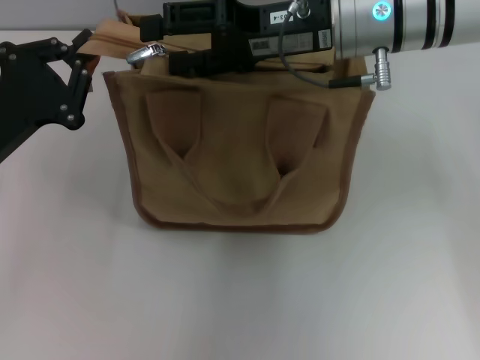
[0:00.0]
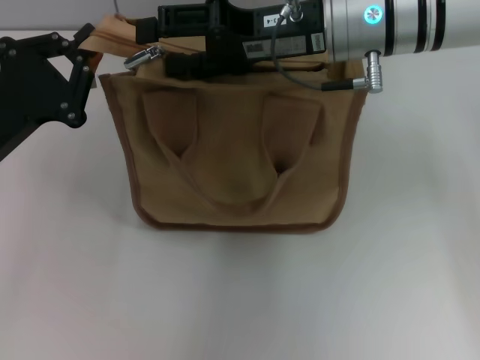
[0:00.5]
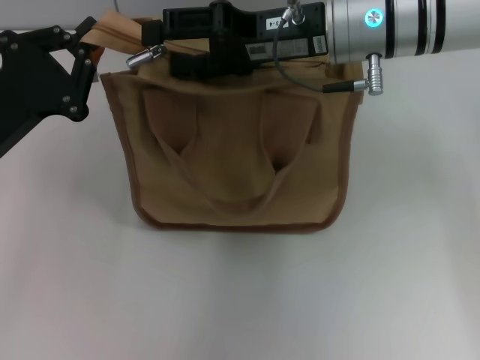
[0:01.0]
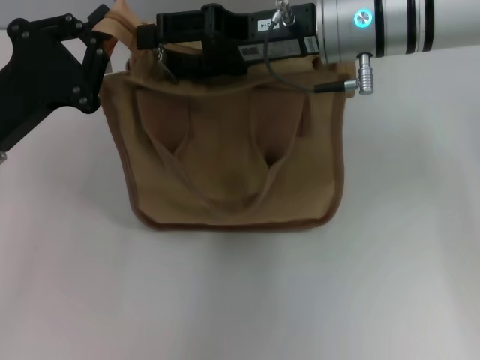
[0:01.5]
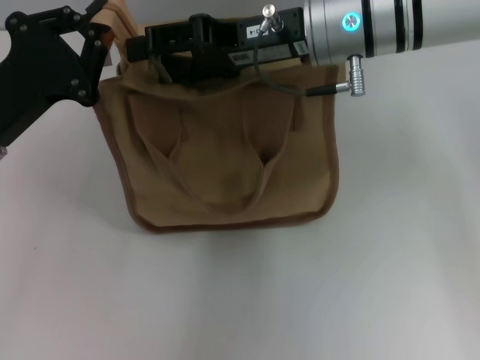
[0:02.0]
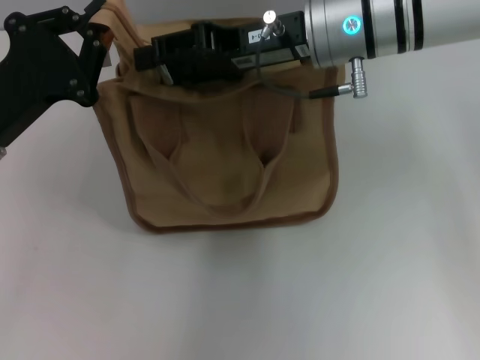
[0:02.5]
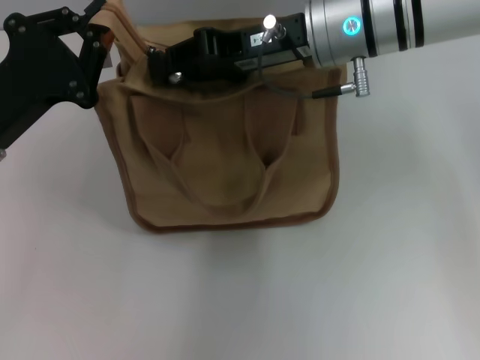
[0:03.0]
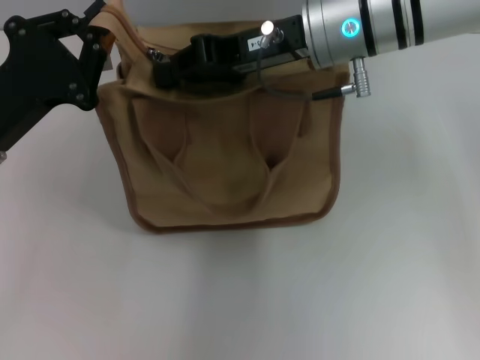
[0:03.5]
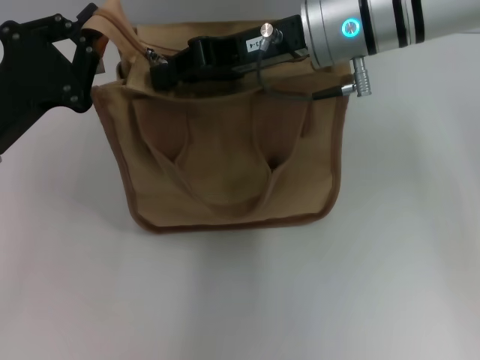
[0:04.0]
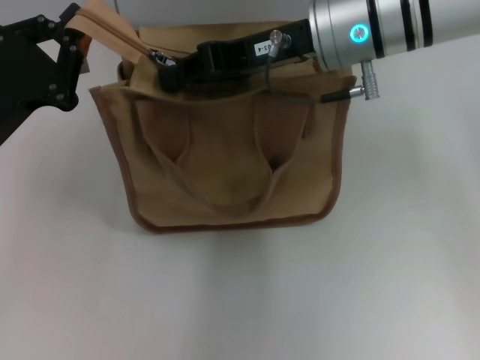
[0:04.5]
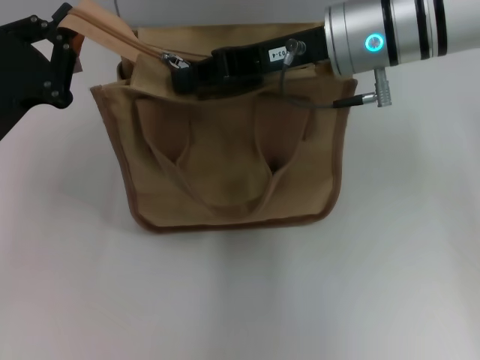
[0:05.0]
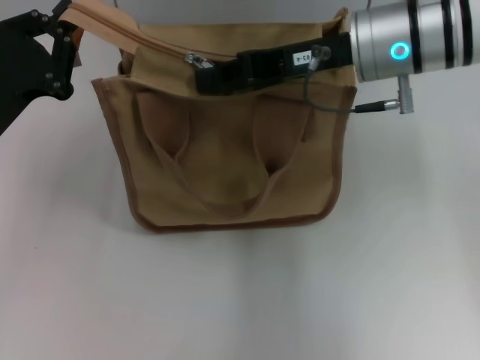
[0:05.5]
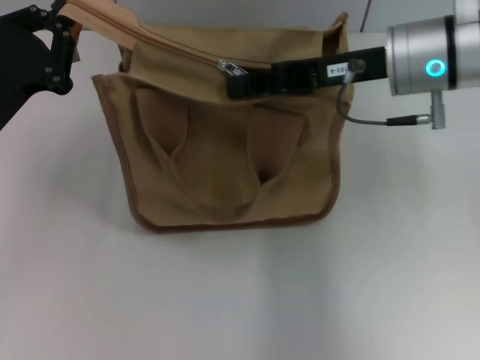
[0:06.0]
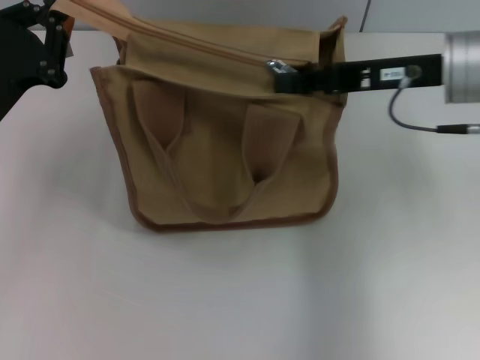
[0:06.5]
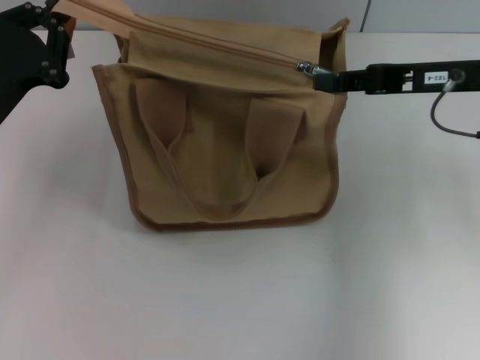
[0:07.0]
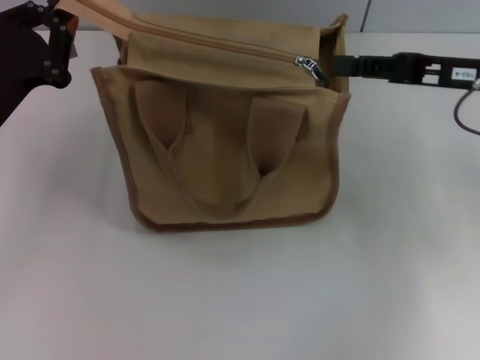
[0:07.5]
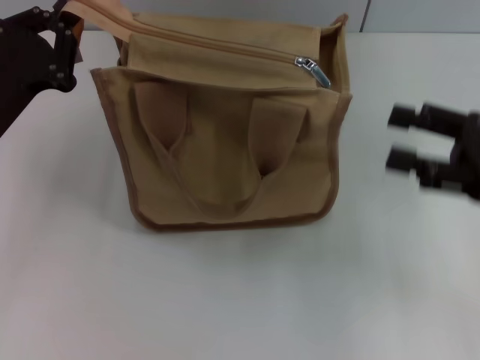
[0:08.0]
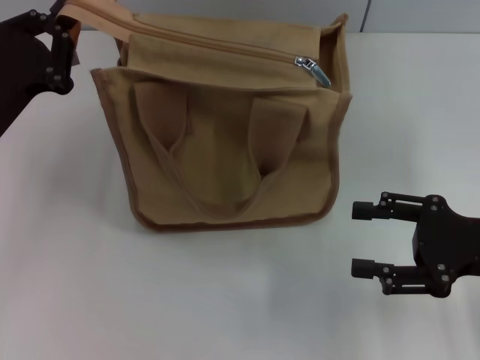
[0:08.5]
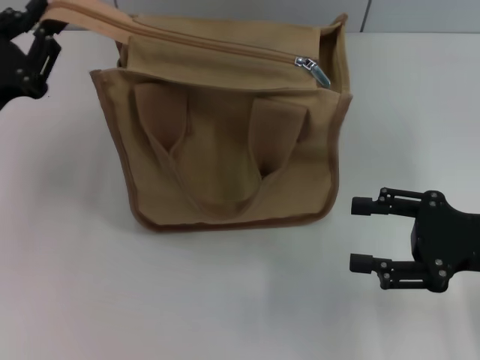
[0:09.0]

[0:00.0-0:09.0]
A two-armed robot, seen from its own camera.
Step, 0:00.0 to 0:07.0: Pull up the zipper with your right hand.
0:00.0 to 0:02.0: The grippers move only a little.
0:02.0 to 0:04.5: The right gripper closes.
0:04.5 to 0:07.0: The right gripper moves to the right, roughly 15 cm.
0:07.0 to 0:09.0: The right gripper travels backward and downward by approximately 15 cm, and opens up.

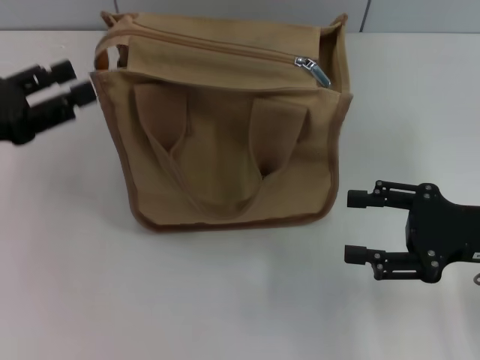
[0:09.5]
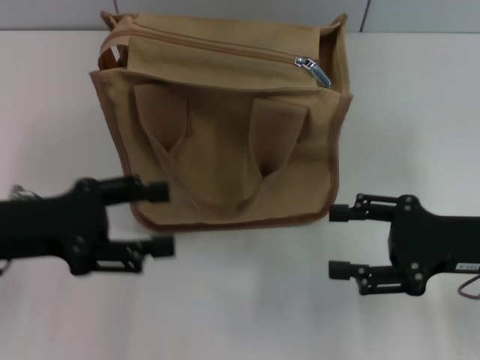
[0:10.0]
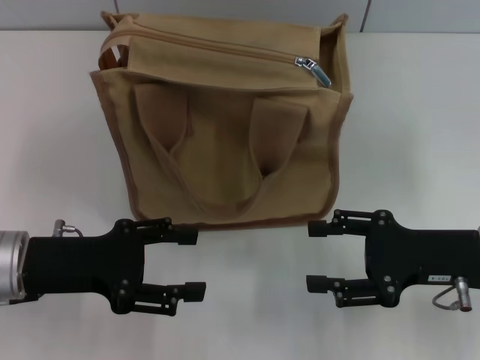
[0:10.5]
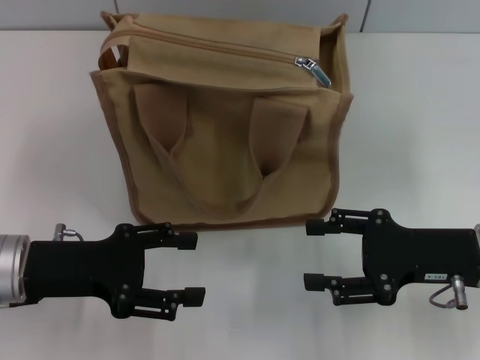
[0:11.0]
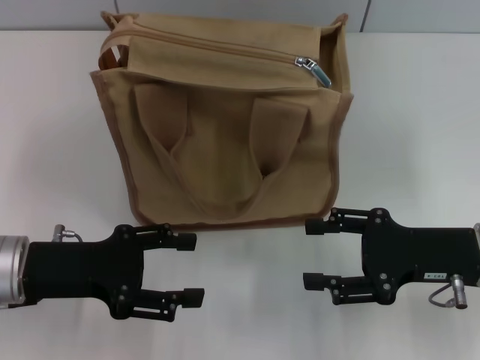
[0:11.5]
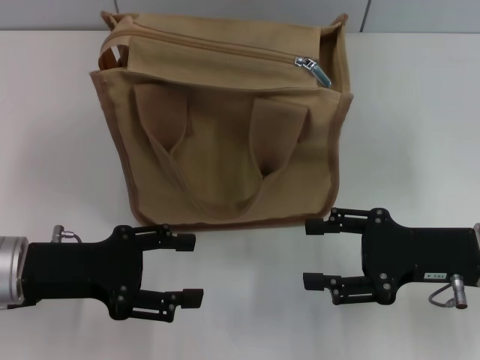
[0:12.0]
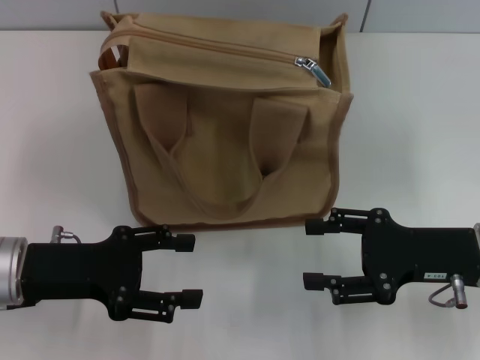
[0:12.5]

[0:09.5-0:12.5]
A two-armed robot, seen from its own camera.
0:09.5 to 0:11.0: The left gripper goes about 10 cm to the right and downward, and opens up.
0:11.0 to 0:12.5: Both grippers stay put.

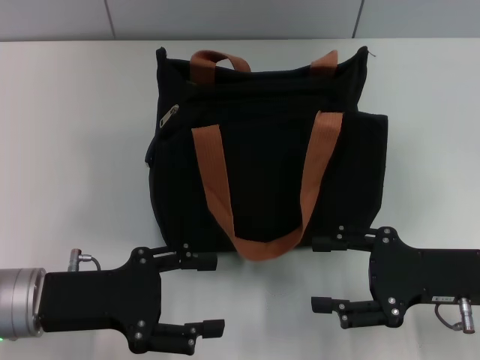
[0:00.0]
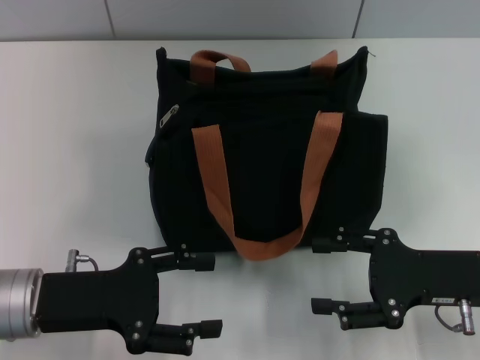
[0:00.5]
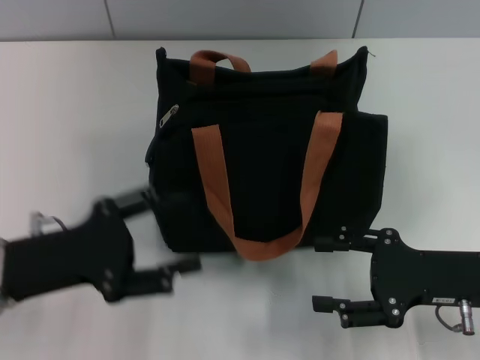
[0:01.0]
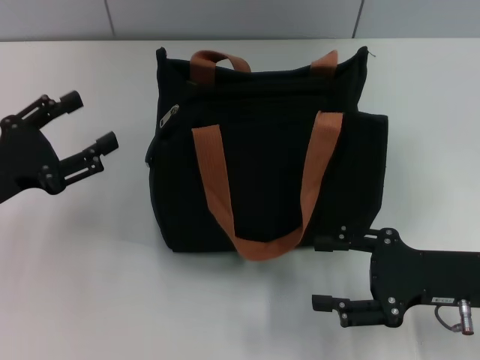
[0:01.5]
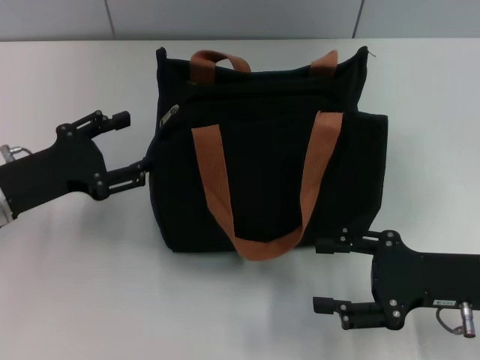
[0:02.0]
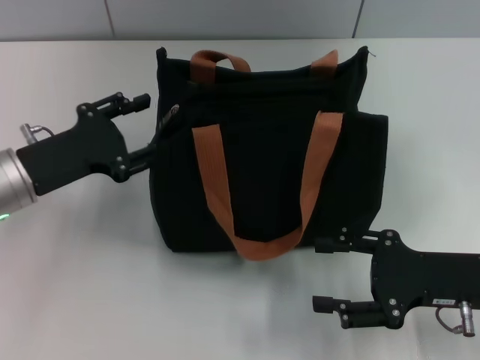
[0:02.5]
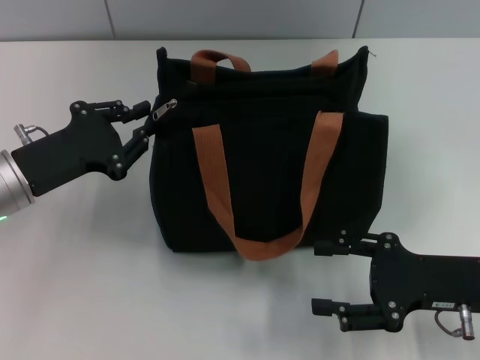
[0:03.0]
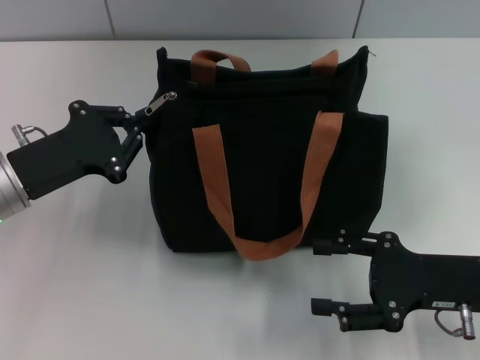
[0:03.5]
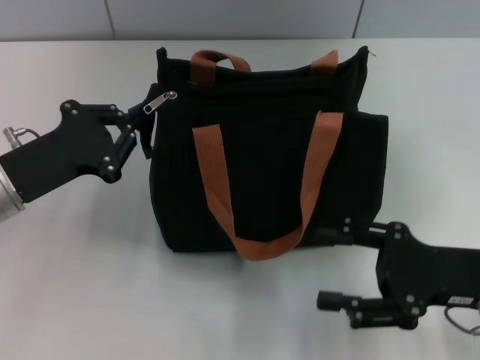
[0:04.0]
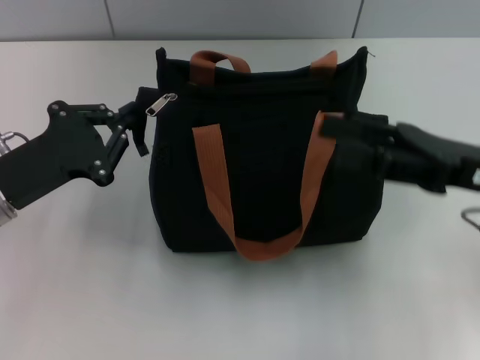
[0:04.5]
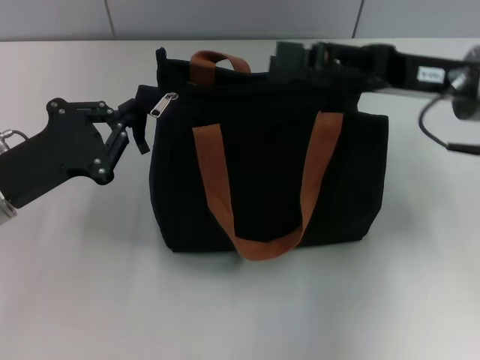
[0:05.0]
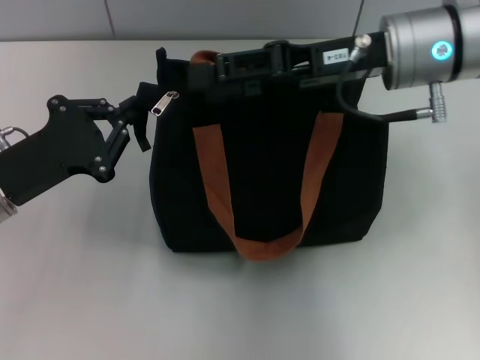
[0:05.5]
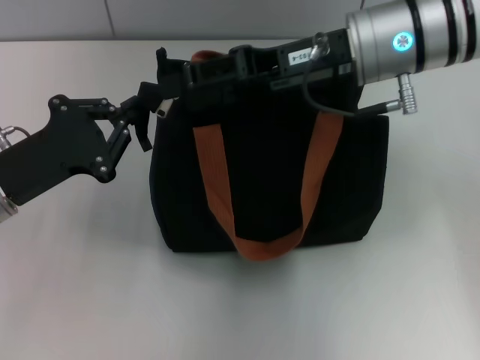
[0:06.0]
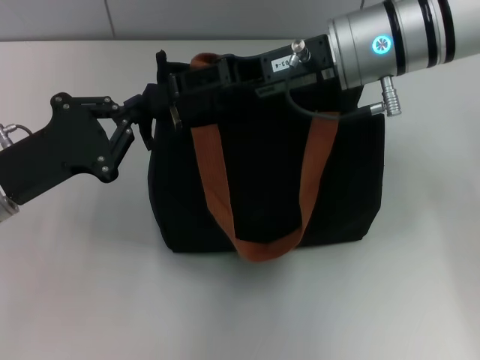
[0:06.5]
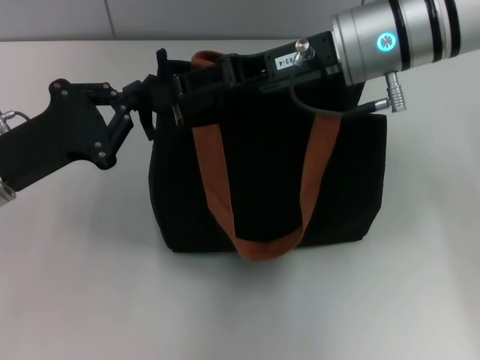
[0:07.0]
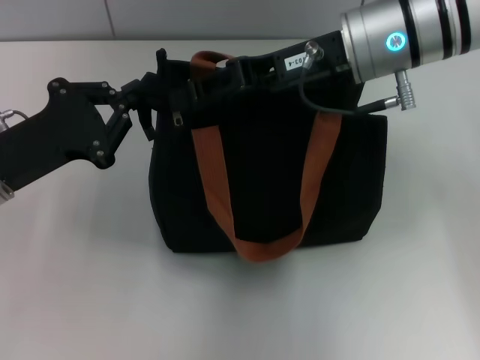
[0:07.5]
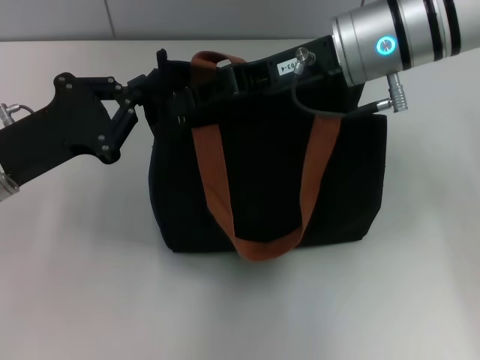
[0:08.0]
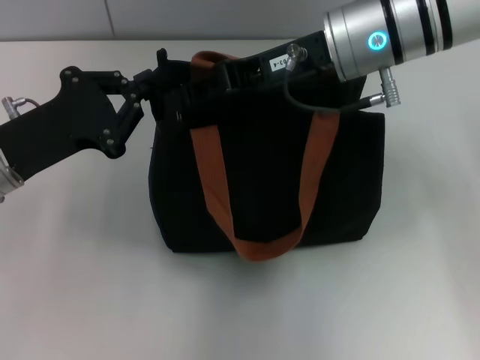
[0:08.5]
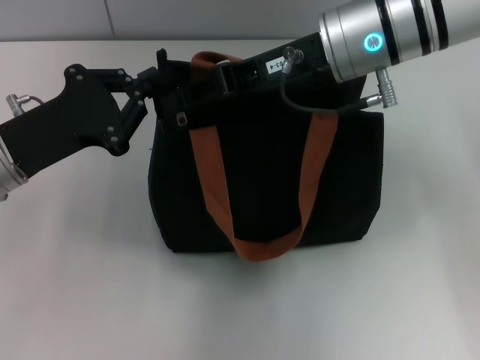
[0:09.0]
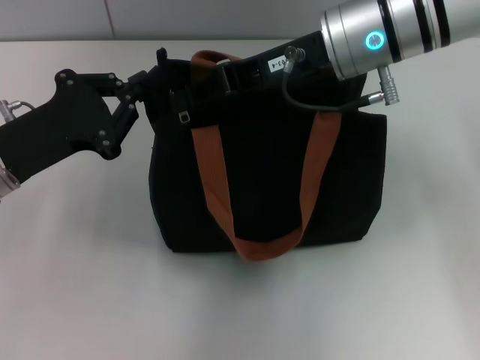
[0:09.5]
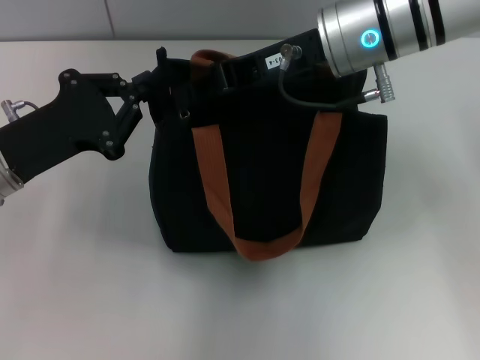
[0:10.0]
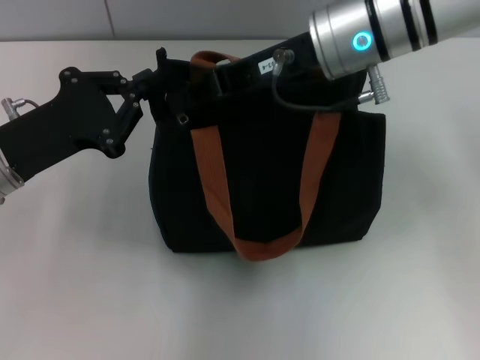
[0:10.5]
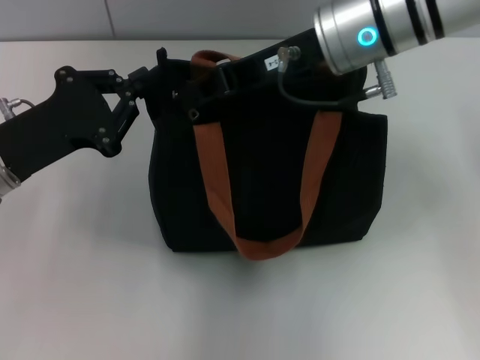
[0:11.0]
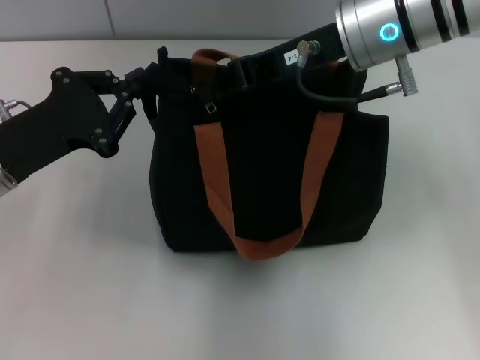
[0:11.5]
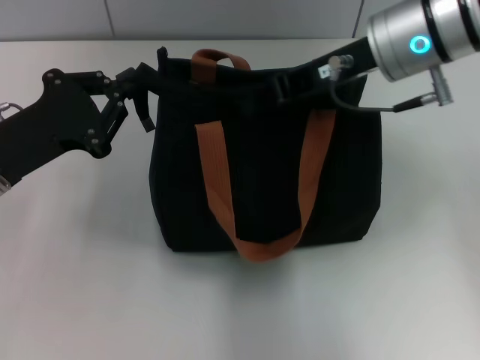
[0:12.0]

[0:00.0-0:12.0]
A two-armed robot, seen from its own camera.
0:00.0 to 0:02.0: The left gripper is displaced forward by some 5 cm.
0:02.0 to 0:04.0: The left gripper closes.
0:04.0 to 0:06.0: The right gripper moves forward, to the left and upward, approximately 25 cm.
0:06.0 to 0:08.0: The right gripper closes its fingers.
0:08.0 to 0:10.0: The right gripper closes its fingers.
0:10.0 to 0:12.0: The grippers stay close to where they were, moving slightly.

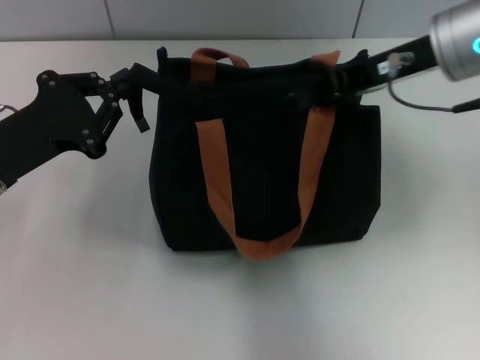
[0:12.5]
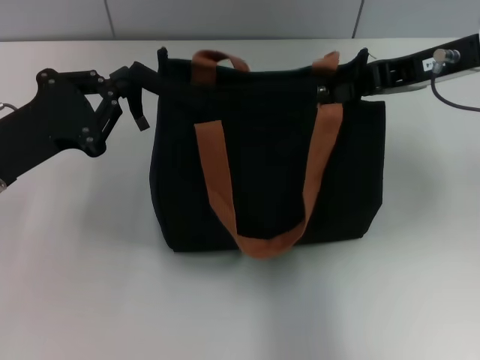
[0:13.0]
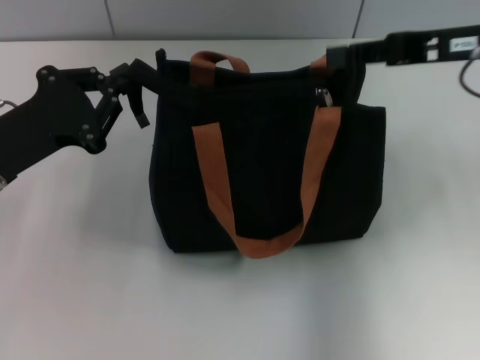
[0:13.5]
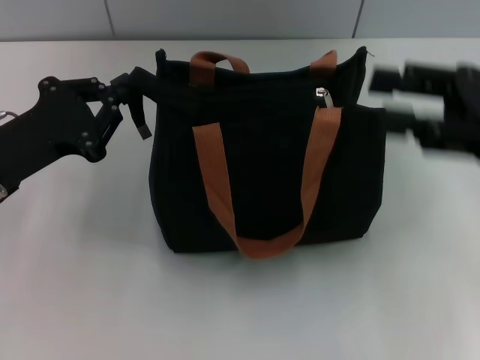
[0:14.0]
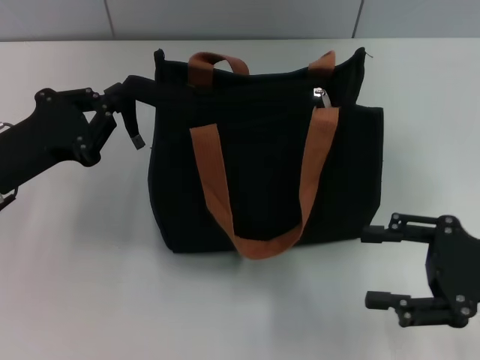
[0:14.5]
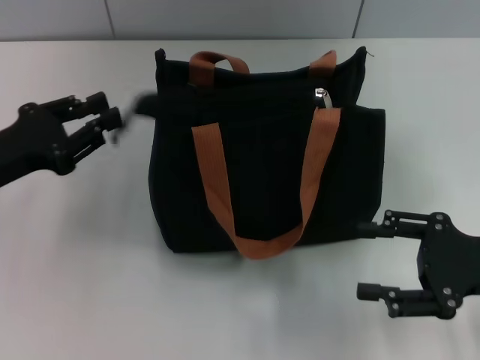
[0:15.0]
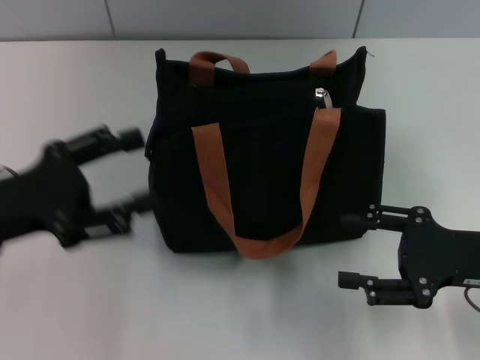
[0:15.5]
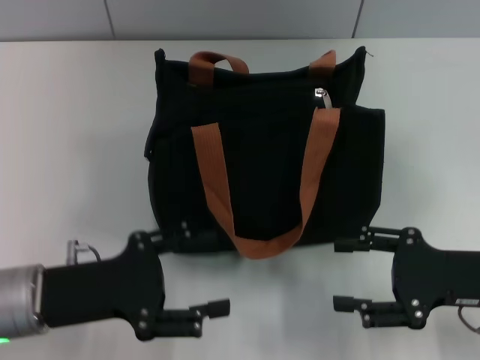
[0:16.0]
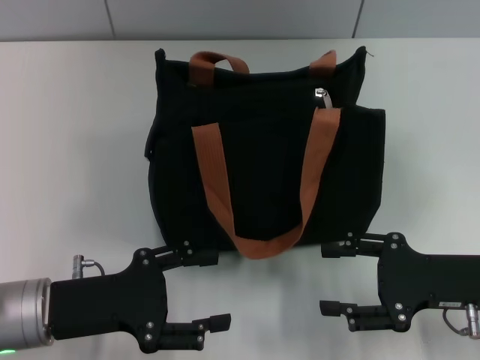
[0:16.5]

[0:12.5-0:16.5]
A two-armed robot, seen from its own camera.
Step, 0:14.0 to 0:15.0: Grab the zipper with your left hand.
0:12.5 to 0:14.5: The right gripper shifts about 20 cm backward, downward and to the right, and opens its fingers.
0:14.5 to 0:16.5: The left gripper moves backward, approximately 5 cm, and opens up.
